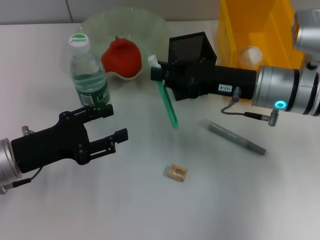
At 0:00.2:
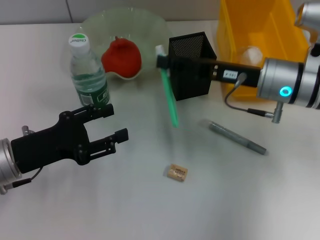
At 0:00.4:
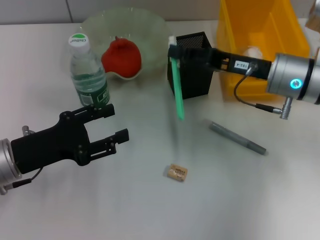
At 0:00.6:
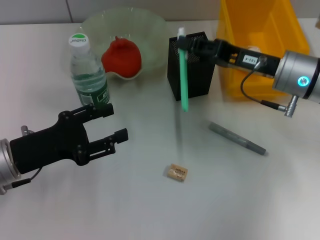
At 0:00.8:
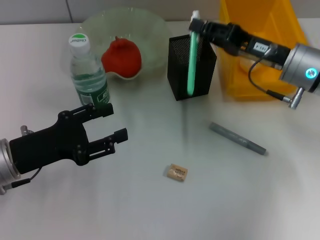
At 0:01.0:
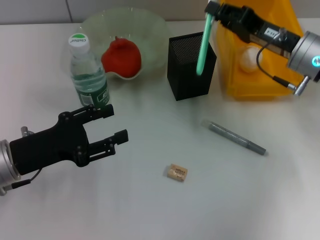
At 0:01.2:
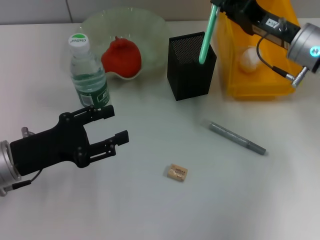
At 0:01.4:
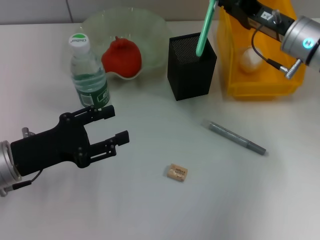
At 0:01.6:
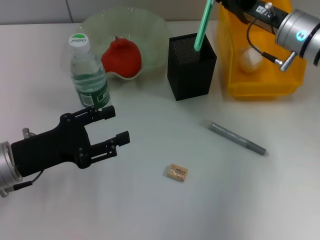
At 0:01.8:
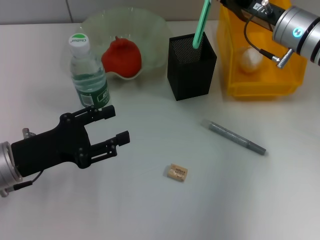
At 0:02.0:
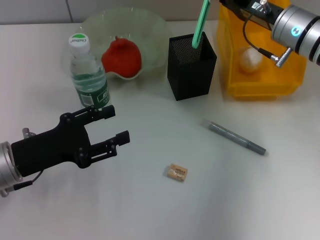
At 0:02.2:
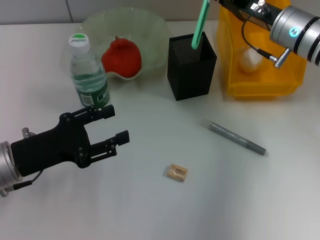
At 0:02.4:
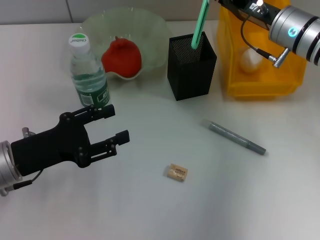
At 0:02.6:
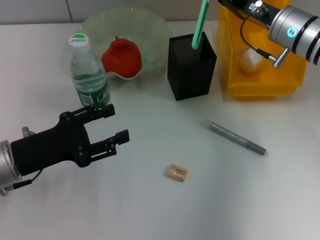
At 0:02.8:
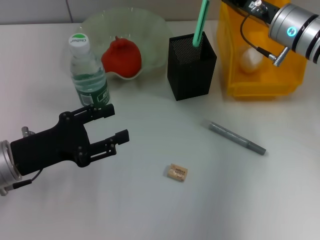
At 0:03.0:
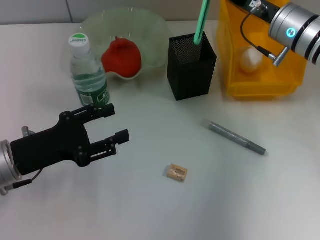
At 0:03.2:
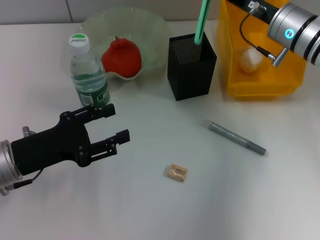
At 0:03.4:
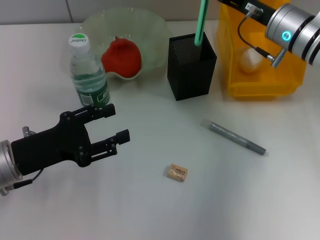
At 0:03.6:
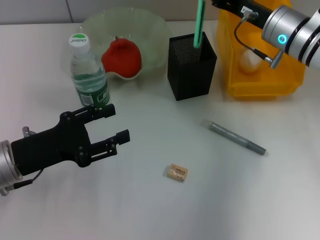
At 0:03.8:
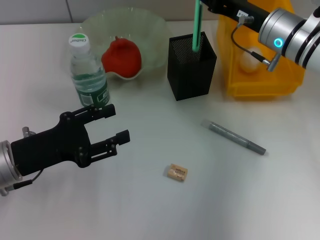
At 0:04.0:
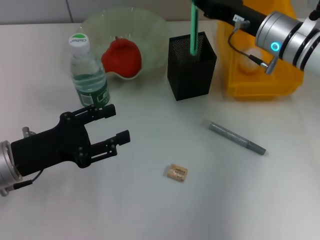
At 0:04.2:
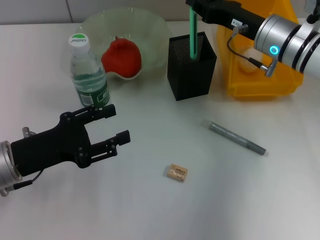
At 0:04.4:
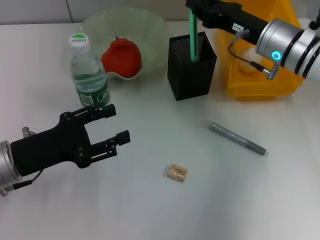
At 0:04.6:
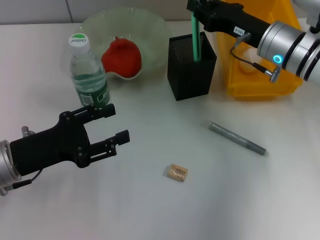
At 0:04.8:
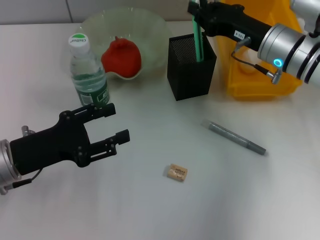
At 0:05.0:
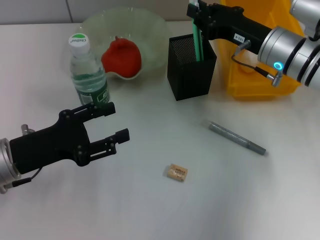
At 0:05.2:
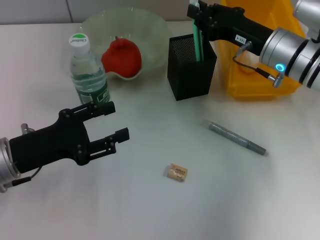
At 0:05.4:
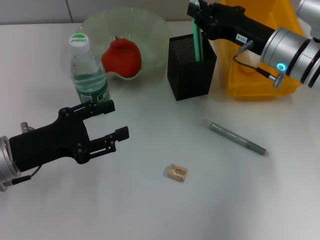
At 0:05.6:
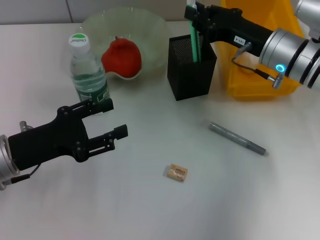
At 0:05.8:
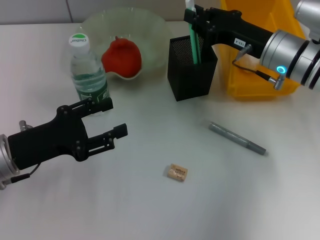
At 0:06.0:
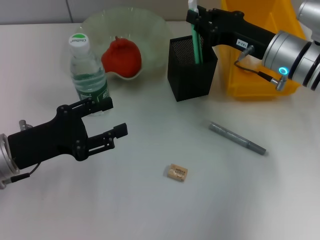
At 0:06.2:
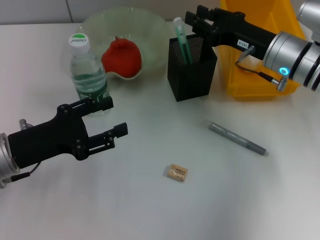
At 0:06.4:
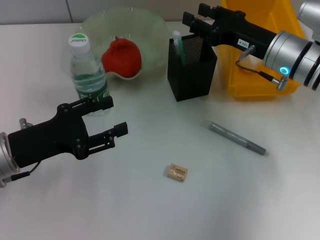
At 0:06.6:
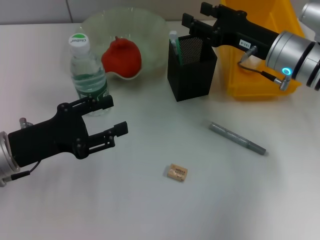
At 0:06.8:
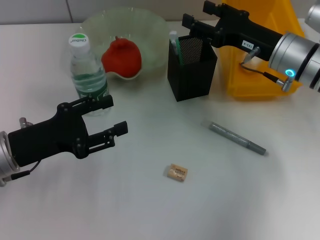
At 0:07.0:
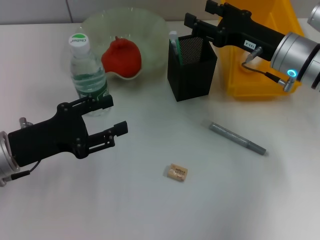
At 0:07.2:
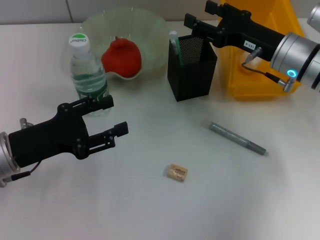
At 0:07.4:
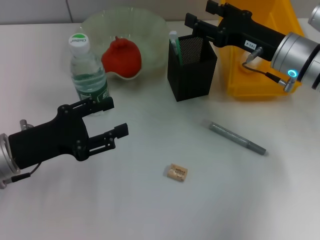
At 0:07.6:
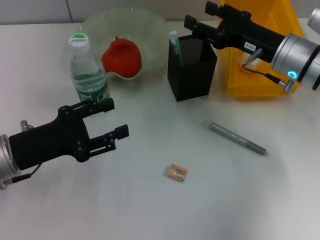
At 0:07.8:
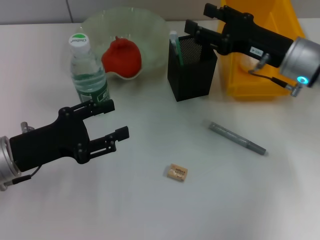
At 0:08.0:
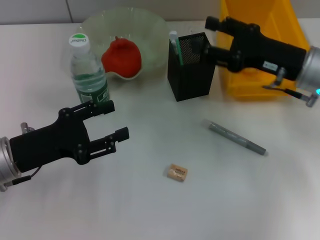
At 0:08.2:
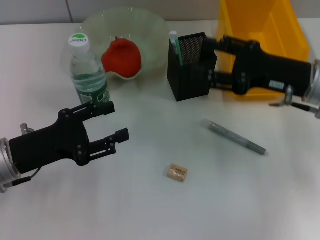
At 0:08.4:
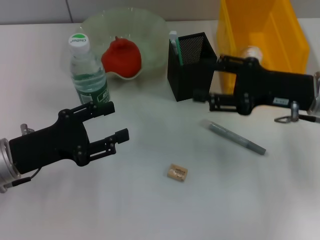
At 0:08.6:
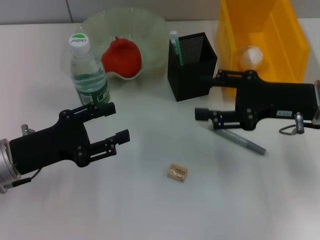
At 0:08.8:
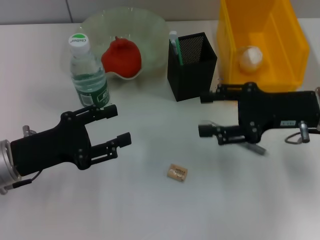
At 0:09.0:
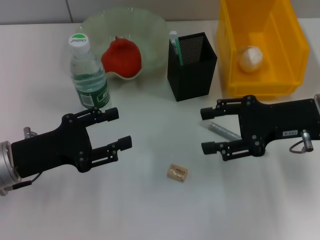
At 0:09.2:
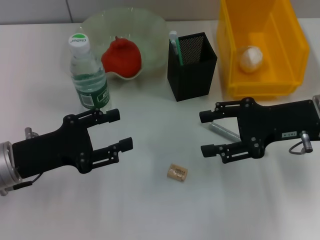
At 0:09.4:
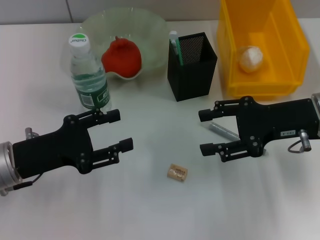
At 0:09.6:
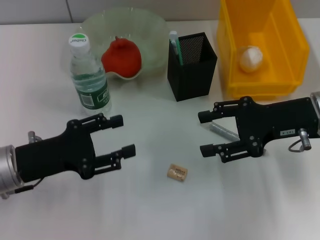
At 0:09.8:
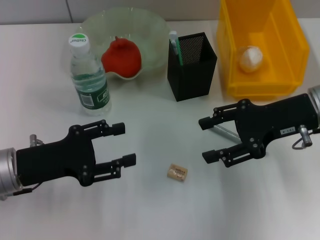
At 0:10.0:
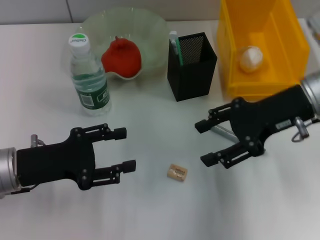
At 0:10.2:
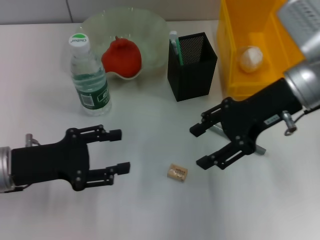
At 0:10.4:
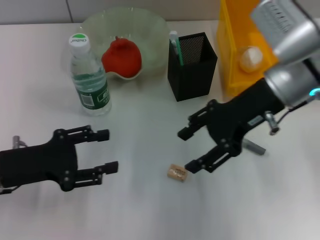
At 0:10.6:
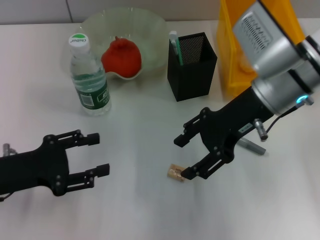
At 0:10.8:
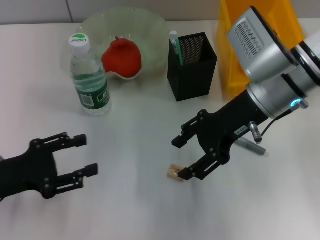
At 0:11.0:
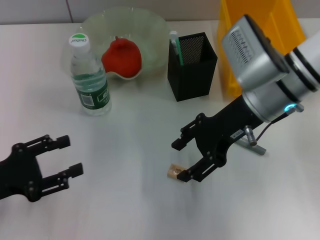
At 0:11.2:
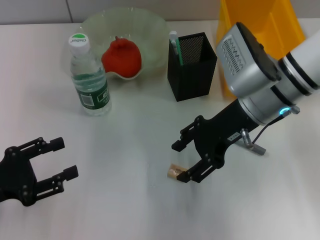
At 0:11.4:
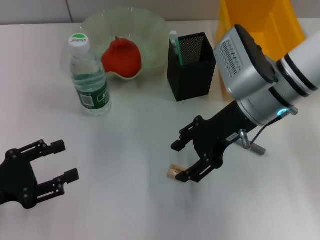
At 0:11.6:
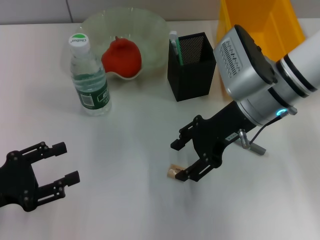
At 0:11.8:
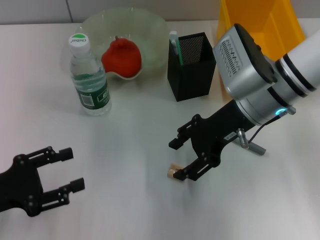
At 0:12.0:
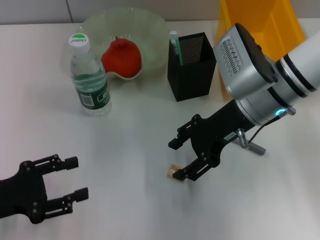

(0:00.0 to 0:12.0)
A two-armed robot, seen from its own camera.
Step, 0:00.0 - 0:06.4: Place the blue utility knife into the pen holder with the right hand.
0:00.0 - 0:01.6: The right gripper is displaced forward by some 5 cm.
0:01.6 - 0:03.0: The grippers stay close to where they were, moving slightly.
0:04.4 - 0:06.0: The grippers move only a little.
0:06.0 - 0:07.6: The right gripper opens up.
0:07.6 - 0:09.0: The right gripper is displaced backward by about 5 cm.
0:09.0 - 0:10.4: The right gripper moves to the left and upward, roughly 10 cm.
0:10.4 - 0:12.0: The left gripper shifts roughly 5 cm backward.

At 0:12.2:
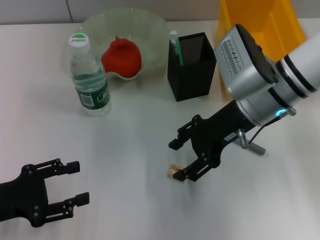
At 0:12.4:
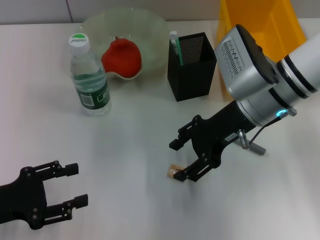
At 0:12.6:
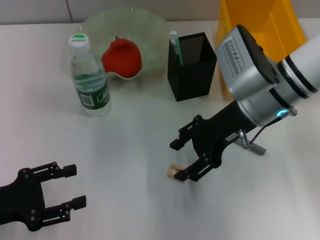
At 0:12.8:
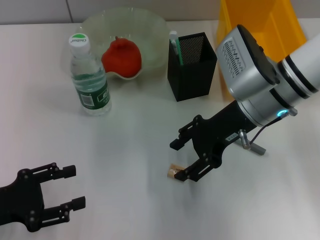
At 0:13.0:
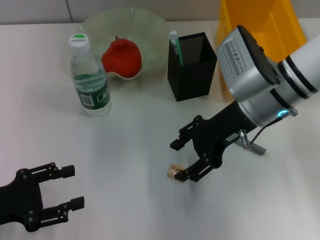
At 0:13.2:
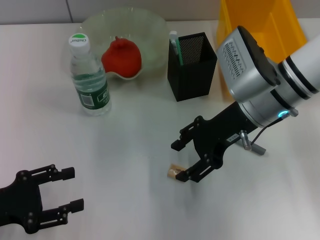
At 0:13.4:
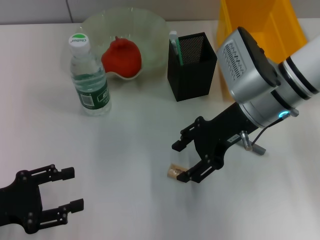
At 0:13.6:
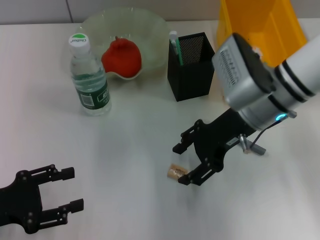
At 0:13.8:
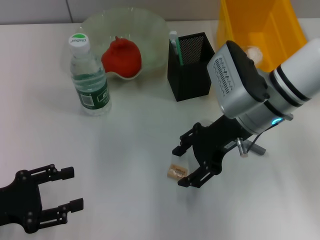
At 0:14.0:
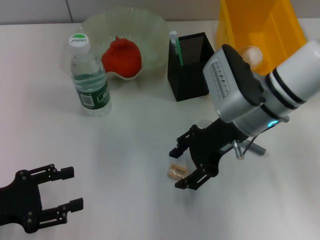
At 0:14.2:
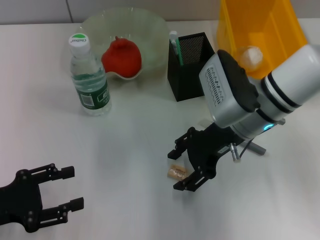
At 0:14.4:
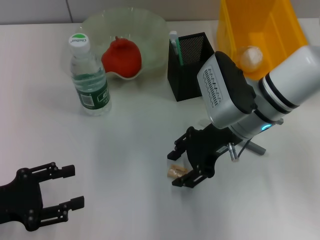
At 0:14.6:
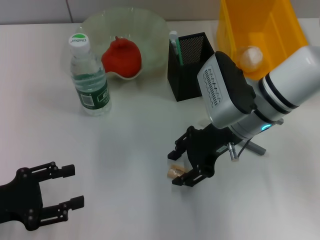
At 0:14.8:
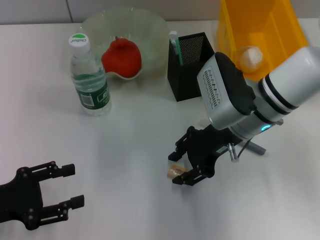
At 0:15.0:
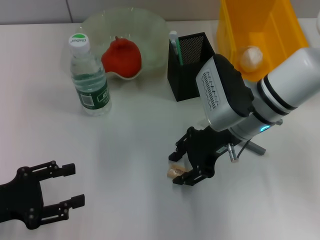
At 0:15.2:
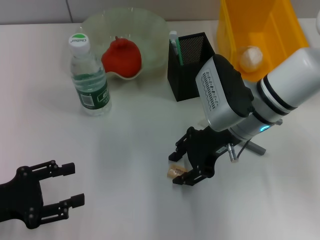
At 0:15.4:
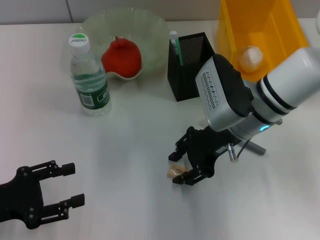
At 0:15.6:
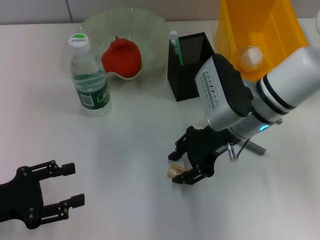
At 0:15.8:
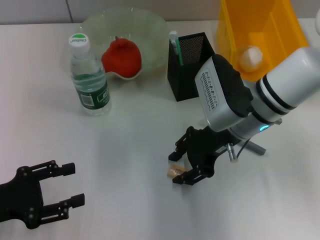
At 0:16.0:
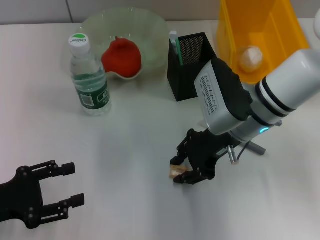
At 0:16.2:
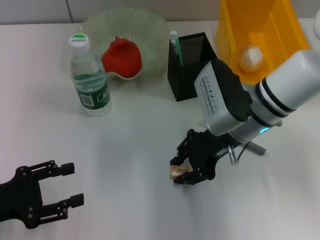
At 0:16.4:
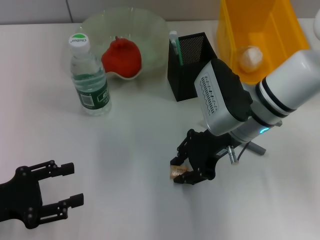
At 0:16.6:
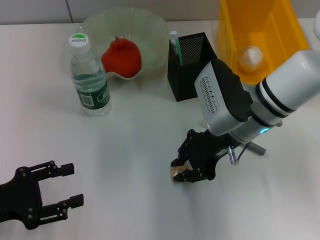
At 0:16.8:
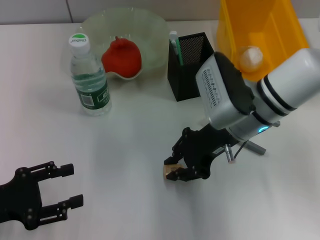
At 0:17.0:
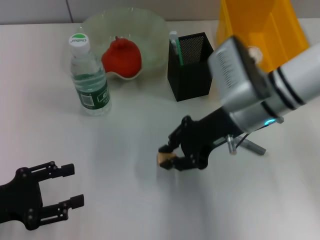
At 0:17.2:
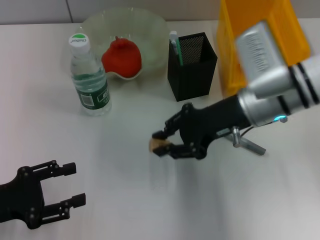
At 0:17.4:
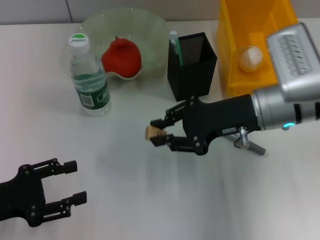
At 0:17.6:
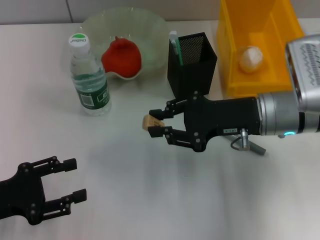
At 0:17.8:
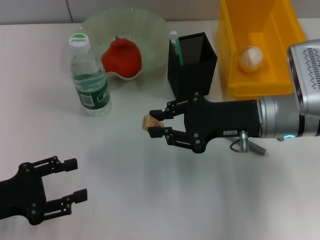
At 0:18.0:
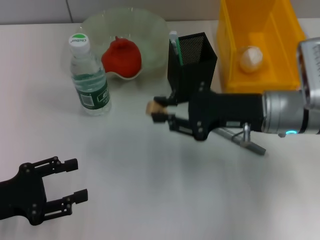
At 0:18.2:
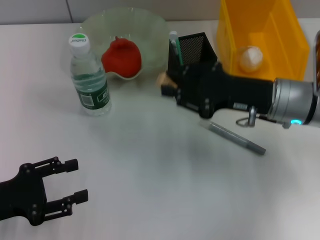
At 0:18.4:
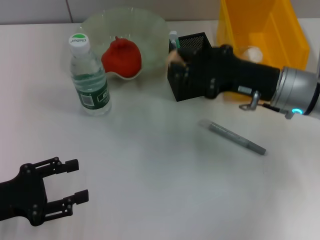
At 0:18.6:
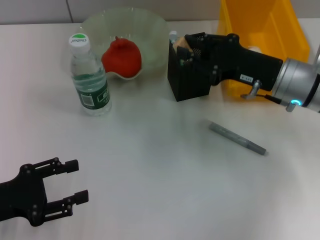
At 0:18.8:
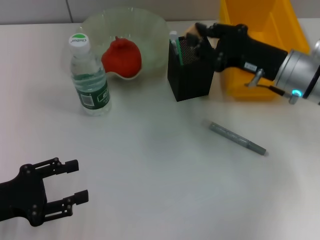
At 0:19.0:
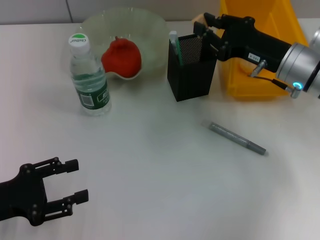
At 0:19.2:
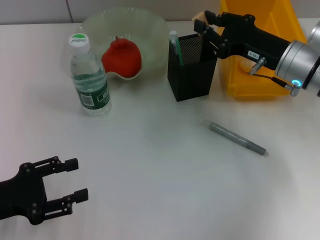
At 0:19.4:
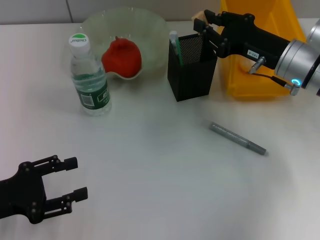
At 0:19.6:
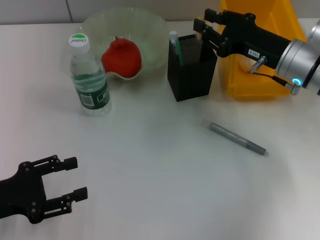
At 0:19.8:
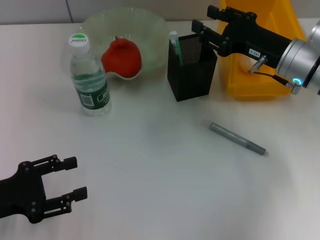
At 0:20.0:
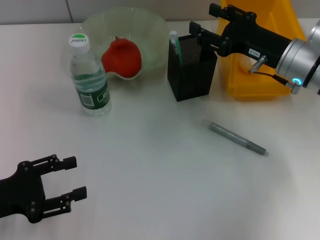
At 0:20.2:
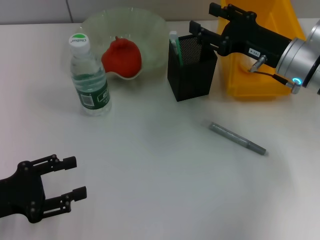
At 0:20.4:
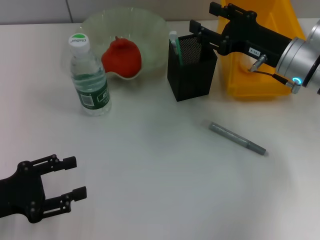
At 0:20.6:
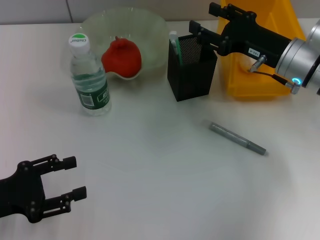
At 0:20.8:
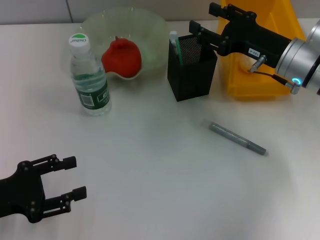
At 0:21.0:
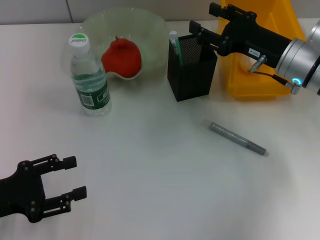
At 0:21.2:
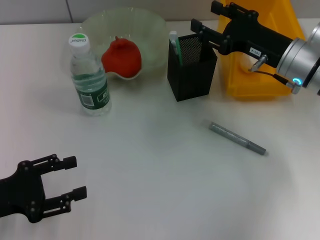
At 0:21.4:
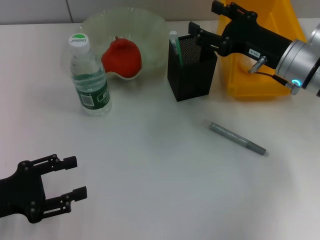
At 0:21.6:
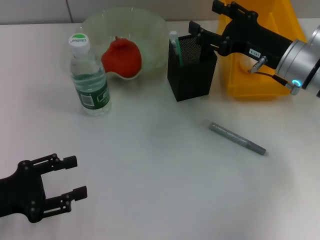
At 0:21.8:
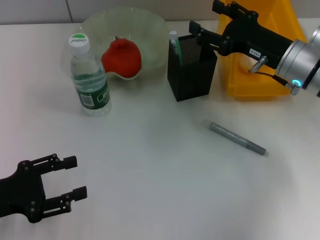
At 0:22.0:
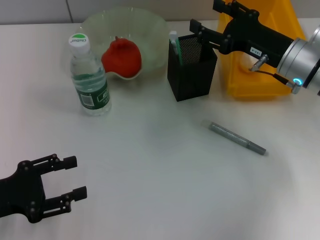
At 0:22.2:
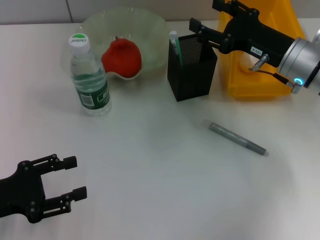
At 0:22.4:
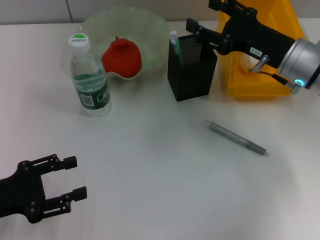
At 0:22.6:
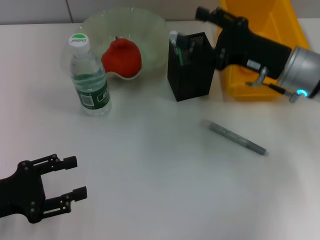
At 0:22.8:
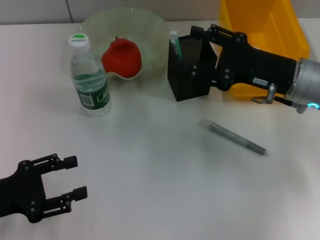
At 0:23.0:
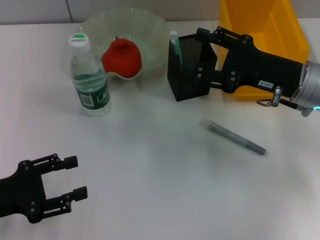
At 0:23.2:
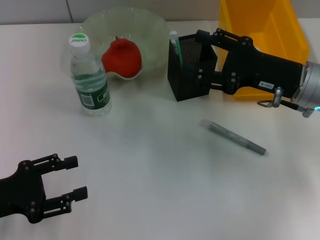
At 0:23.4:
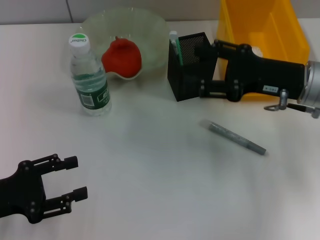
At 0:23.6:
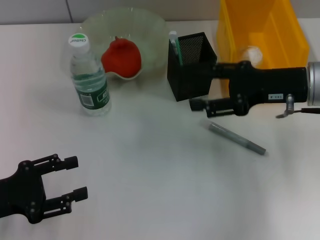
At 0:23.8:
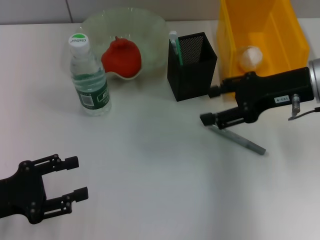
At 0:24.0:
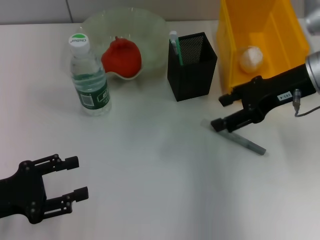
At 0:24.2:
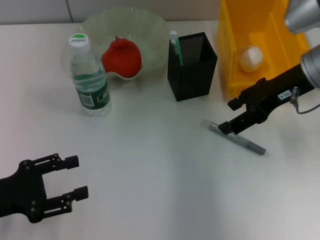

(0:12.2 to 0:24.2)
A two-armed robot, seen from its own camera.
Step, 0:12.2 - 0:16.4: Grab the eraser with the right hand.
Step, 0:16.6 - 0:19.6: Put the eraser into the pen holder with the right hand.
0:12.2 - 0:15.2: The grippers make only small movements.
0:15.2 - 0:16.6: Neither gripper changes place.
0:16.6 - 0:18.2: The right gripper goes approximately 5 cm to the right.
0:18.2 - 0:19.8: The right gripper changes place by roughly 5 cm.
0:19.8 - 0:21.2: The right gripper opens up.
0:21.2 - 0:22.6: The grippers move only a little.
0:22.6 - 0:24.2: The right gripper moves upward, approximately 5 cm.
